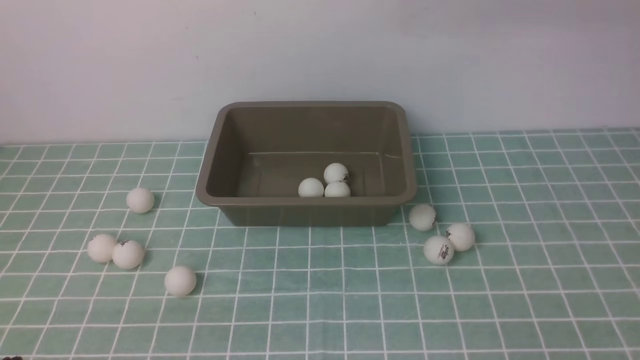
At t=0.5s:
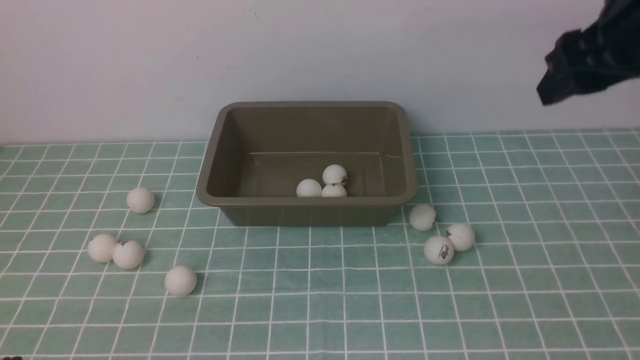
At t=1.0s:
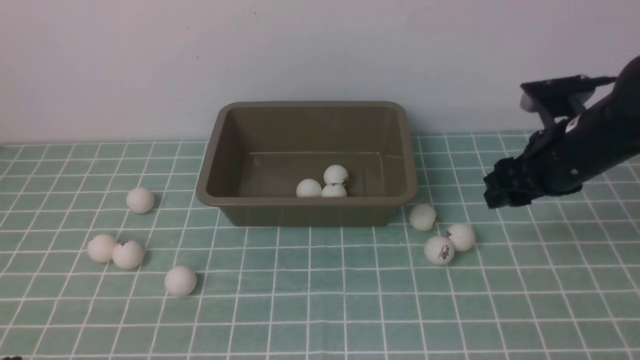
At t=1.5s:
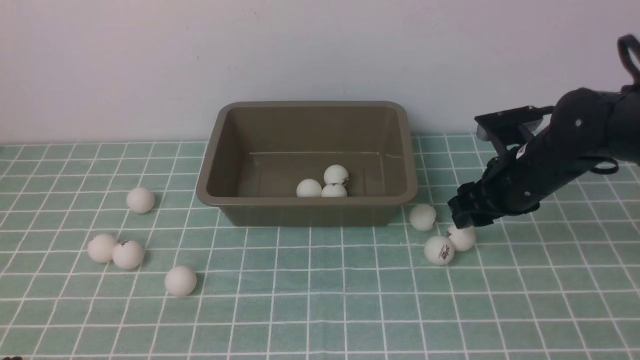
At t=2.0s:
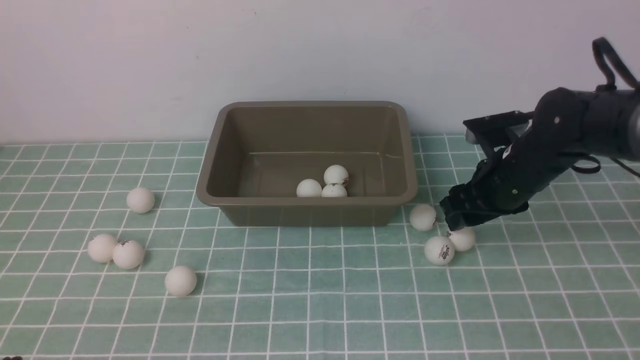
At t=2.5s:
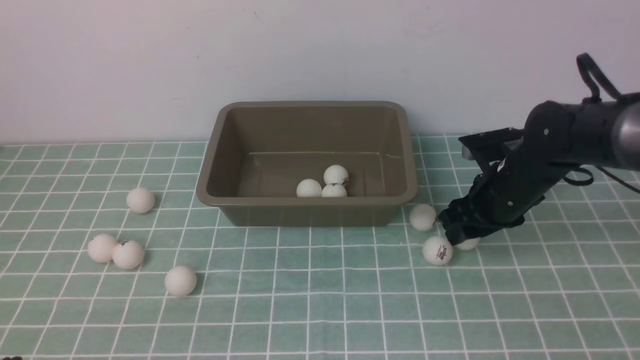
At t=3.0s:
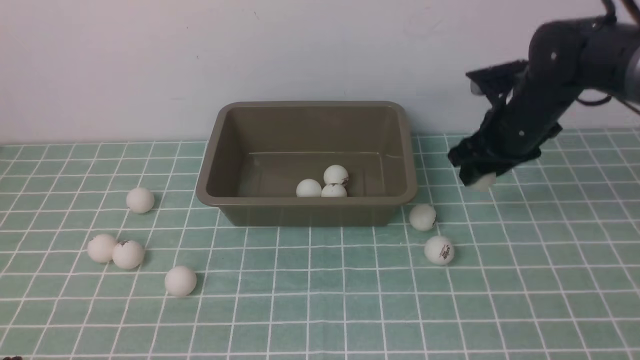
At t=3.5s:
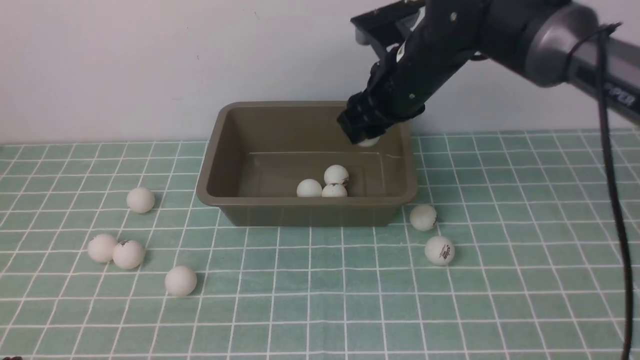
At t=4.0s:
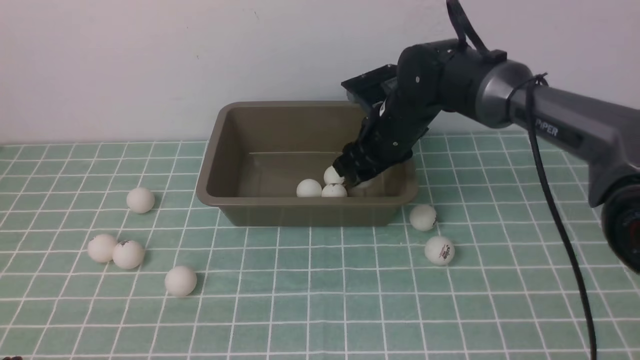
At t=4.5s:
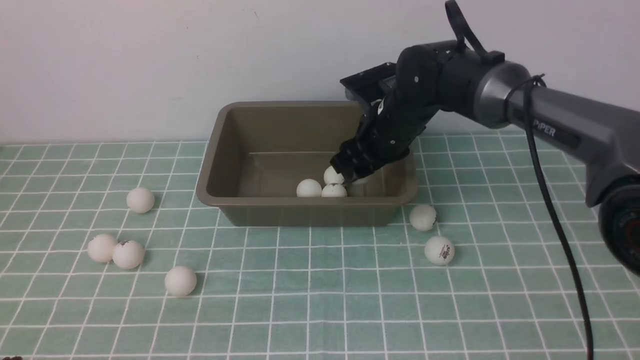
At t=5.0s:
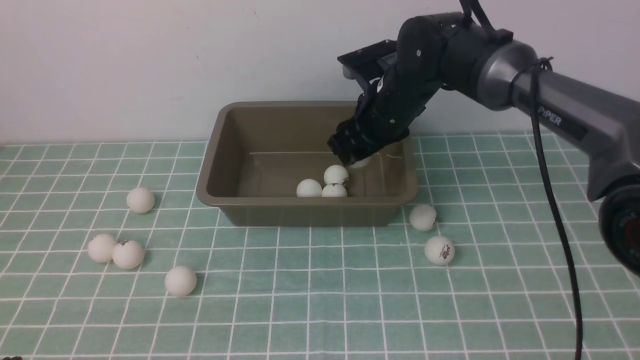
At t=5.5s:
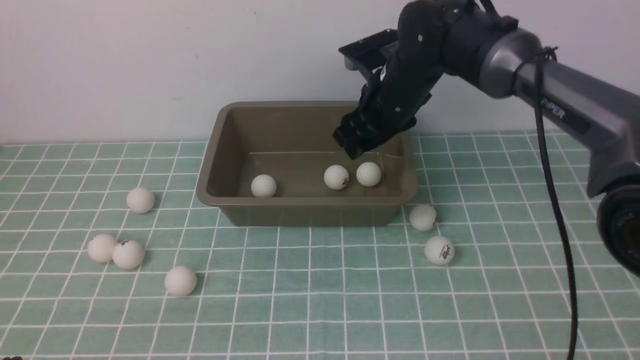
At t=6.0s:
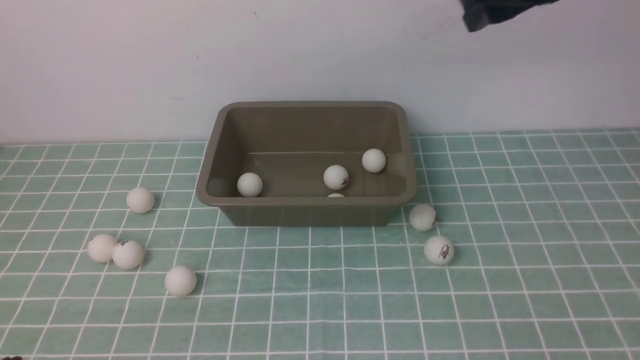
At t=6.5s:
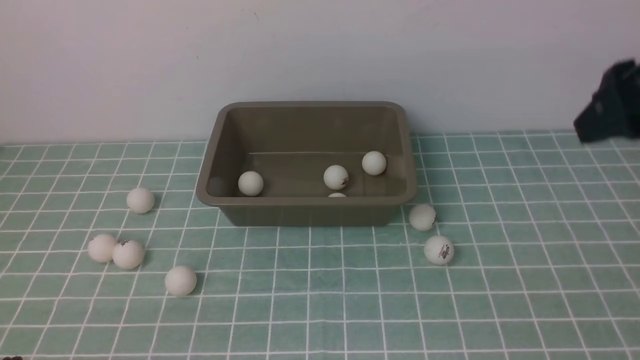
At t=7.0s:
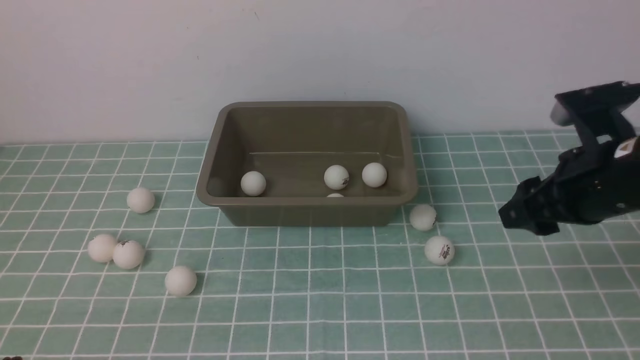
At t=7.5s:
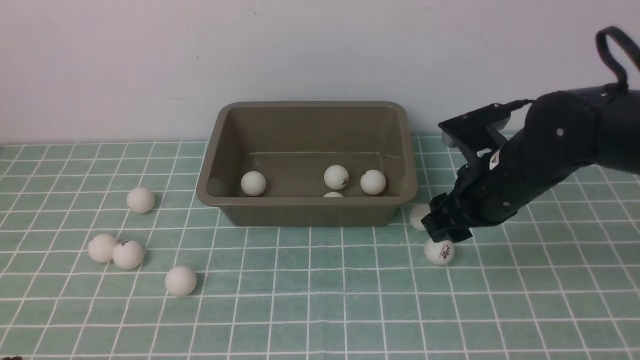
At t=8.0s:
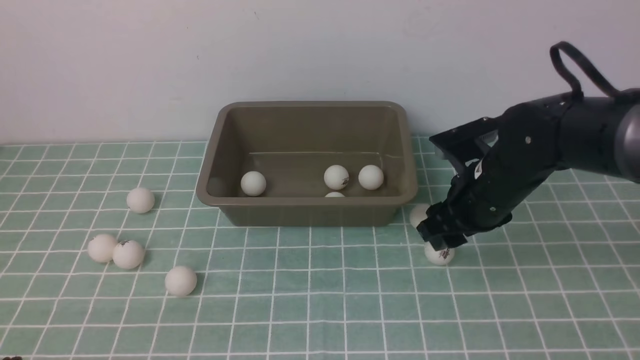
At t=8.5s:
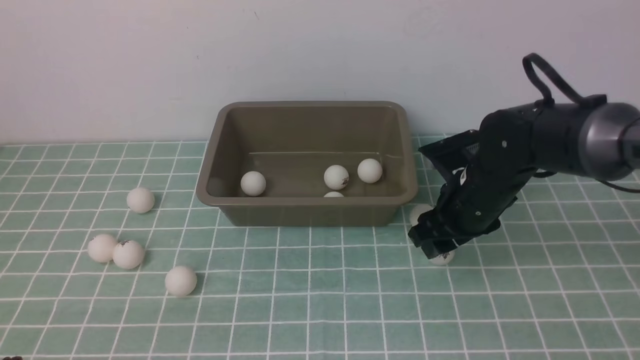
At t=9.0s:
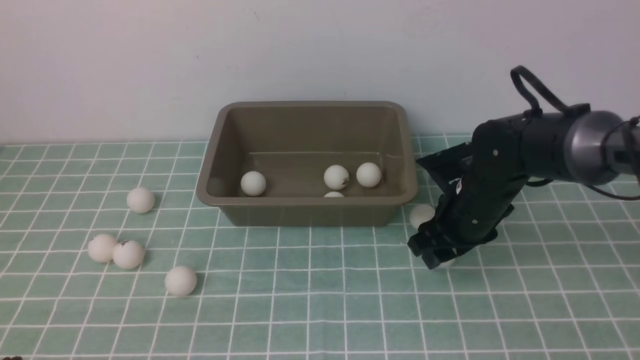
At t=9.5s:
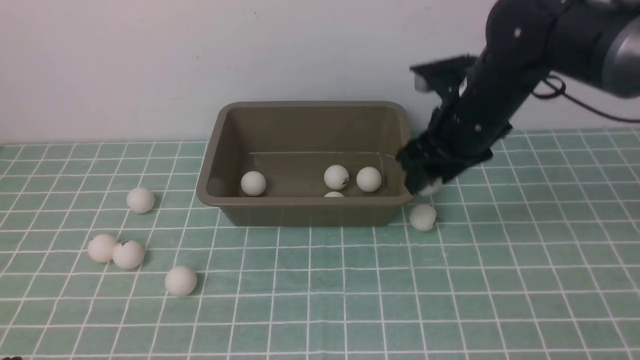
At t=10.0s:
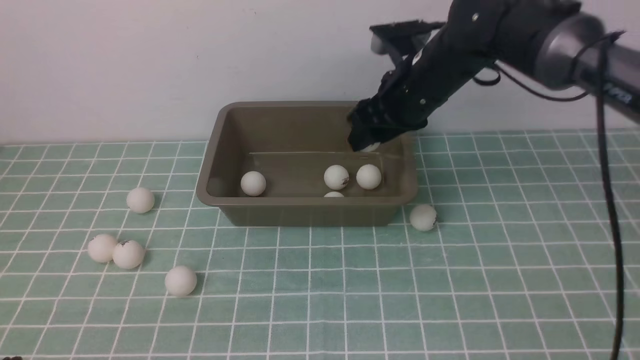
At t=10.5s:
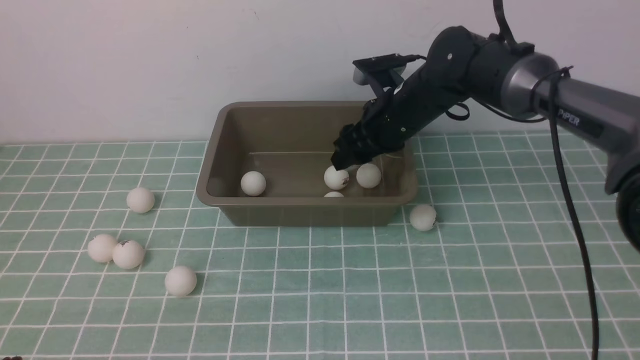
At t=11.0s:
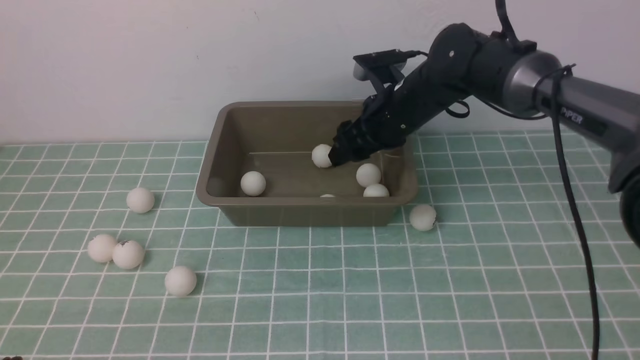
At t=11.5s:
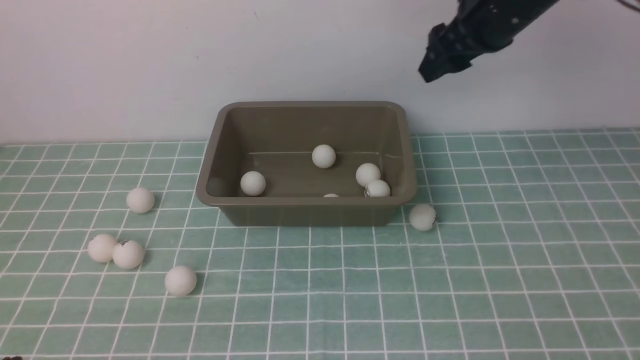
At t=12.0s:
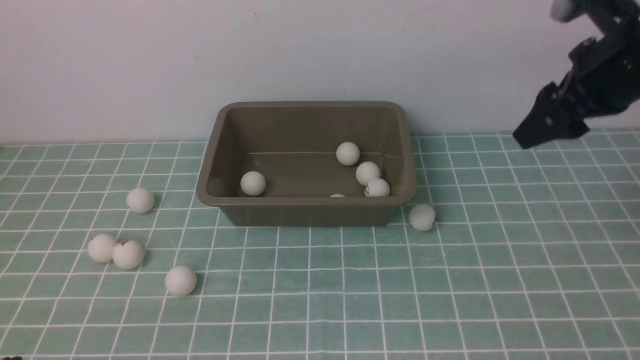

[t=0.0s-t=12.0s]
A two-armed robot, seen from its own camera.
Step, t=0.0s to t=3.0s: use the right arm to clamp the table tennis ball closest to it.
Step, t=3.5s to t=5.0s: use the right arm to put the table tennis ball into the box.
Step, t=5.5s to t=9.0s: use the right arm to clamp the table tennis ball closest to it.
Step, t=10.0s to t=10.5s: use the right arm to put the table tennis ball into the box.
t=0.0s to t=2.0s: The right gripper moves downward, approximately 20 cm.
t=2.0s to t=4.0s: The right gripper goes some 15 cm to the left and forward.
t=4.0s to t=6.0s: The right gripper travels upward and to the right by about 20 cm.
t=6.0s to t=8.0s: The right gripper travels downward by approximately 20 cm.
t=8.0s to t=10.0s: The right gripper shifts about 15 cm forward, upward and to the left.
t=10.0s to t=12.0s: The right gripper is displaced to the right and upward by roughly 15 cm.

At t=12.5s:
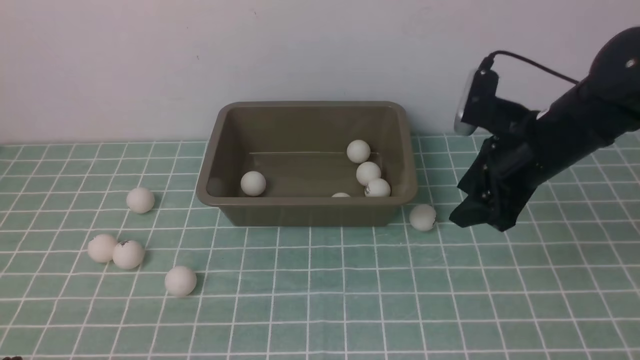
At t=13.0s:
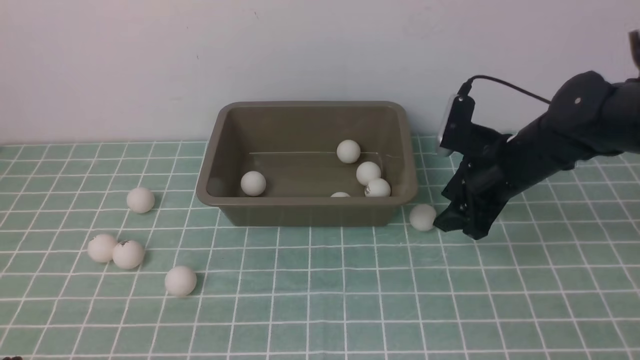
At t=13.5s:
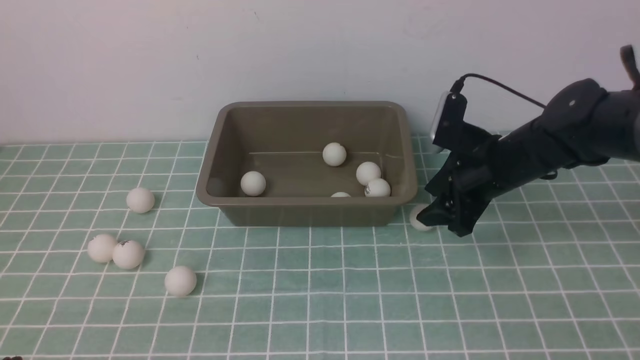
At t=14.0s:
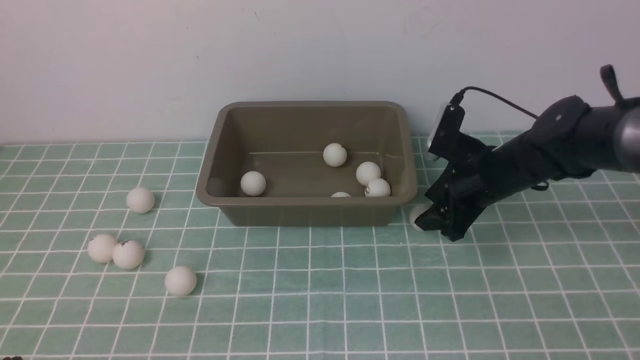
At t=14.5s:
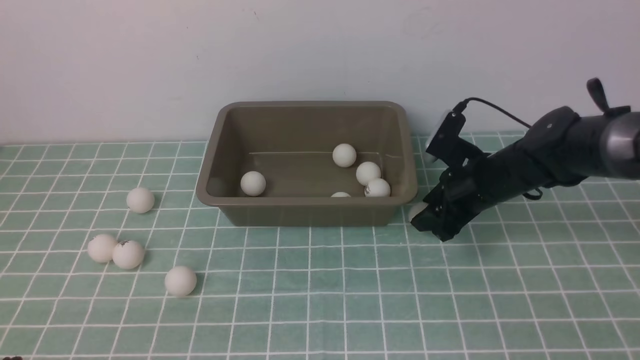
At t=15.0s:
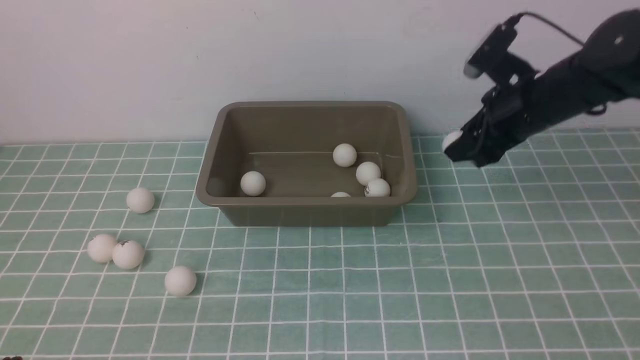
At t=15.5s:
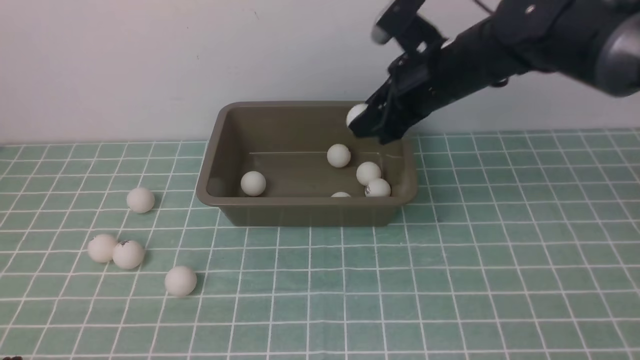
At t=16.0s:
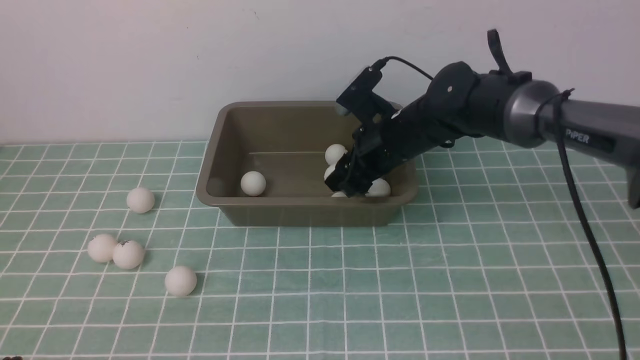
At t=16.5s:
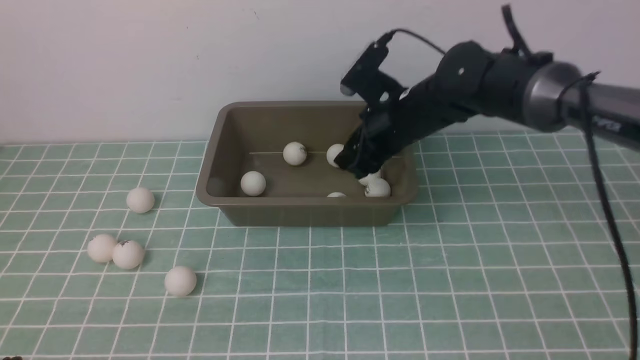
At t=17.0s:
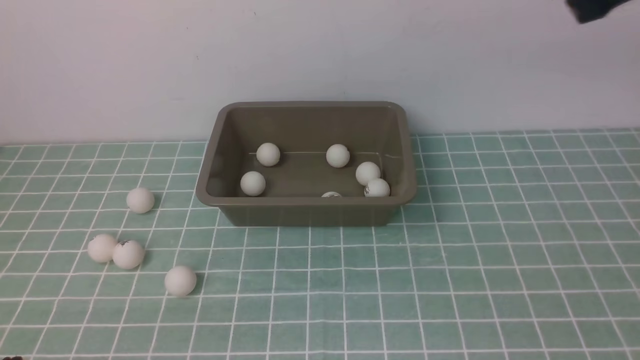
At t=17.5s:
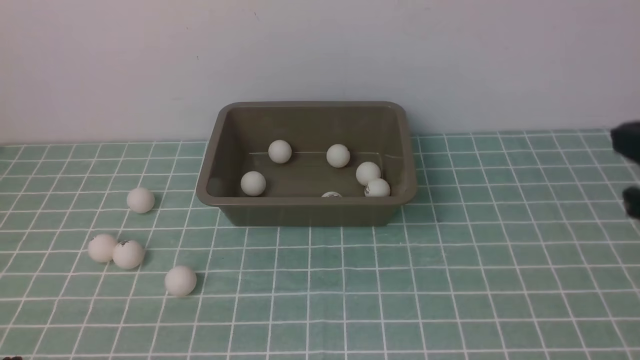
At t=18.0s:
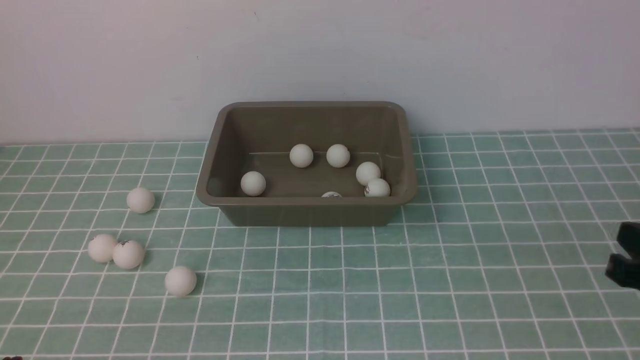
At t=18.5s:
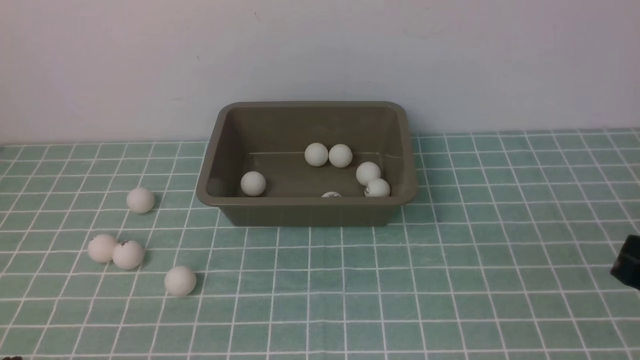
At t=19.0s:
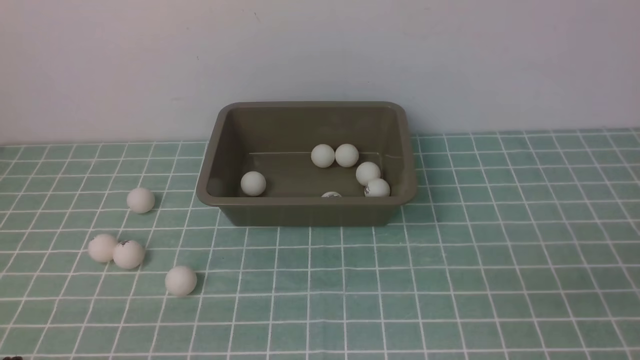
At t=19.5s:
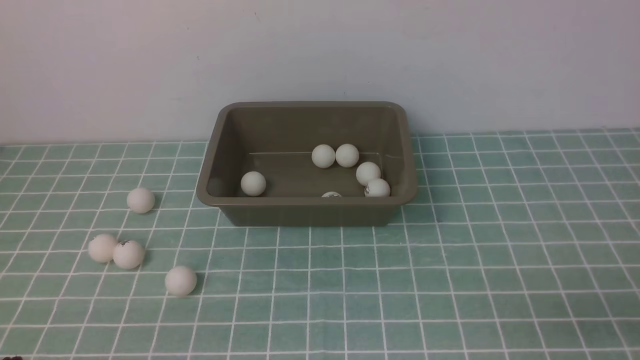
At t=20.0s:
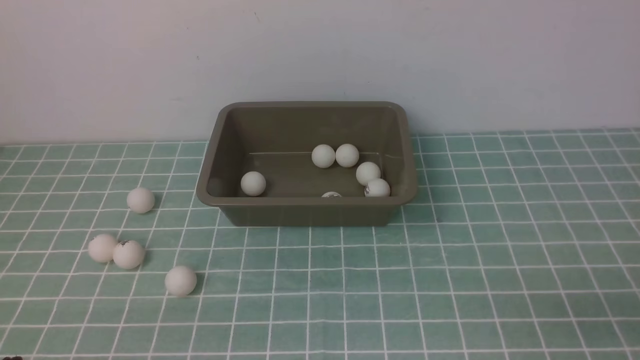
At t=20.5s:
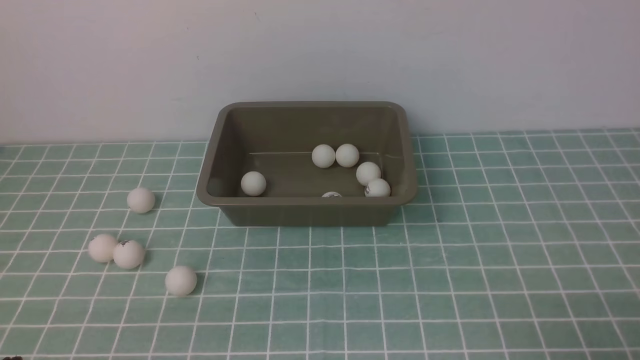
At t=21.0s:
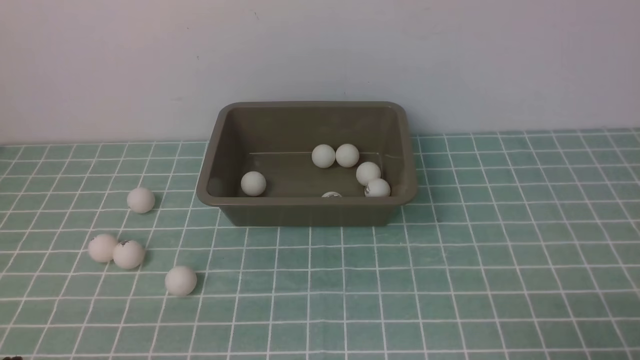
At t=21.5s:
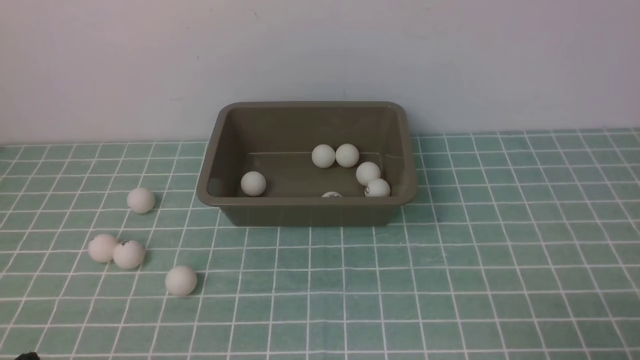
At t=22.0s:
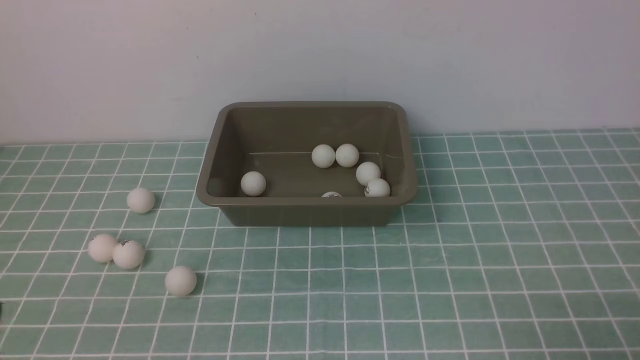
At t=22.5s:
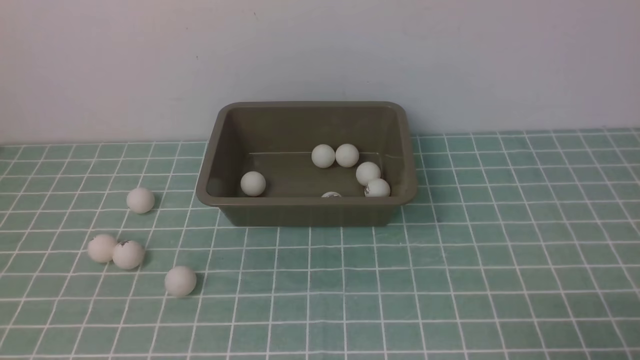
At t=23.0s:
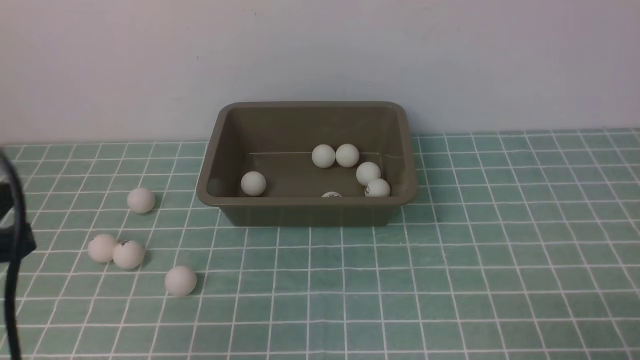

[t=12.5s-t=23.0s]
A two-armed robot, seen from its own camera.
Step, t=12.5s to t=14.5s: use the right arm to clamp the table tennis ball closest to it.
Step, t=15.0s to t=16.0s: use the right arm to put the table tennis ball into the box.
t=12.5s to t=14.5s: The right gripper heads downward and forward, covering approximately 15 cm.
t=14.5s to t=16.5s: The right gripper goes up and down, about 20 cm each way, reversing 2 times.
t=16.5s to t=19.0s: The right gripper is displaced backward and to the right by approximately 30 cm, and closes its fingers.
t=21.0s to t=23.0s: The left gripper is displaced upward by approximately 15 cm.
